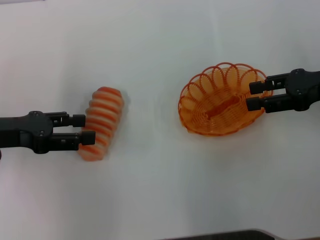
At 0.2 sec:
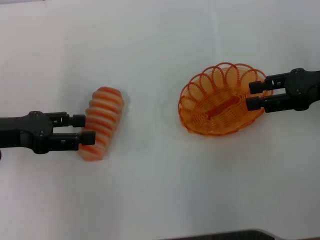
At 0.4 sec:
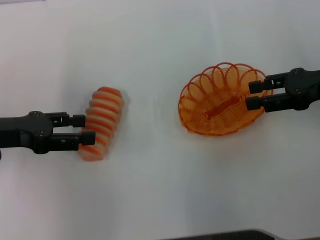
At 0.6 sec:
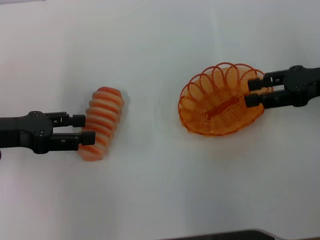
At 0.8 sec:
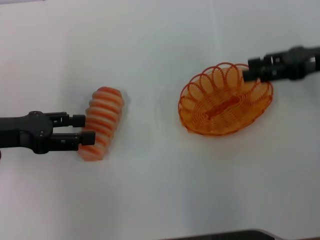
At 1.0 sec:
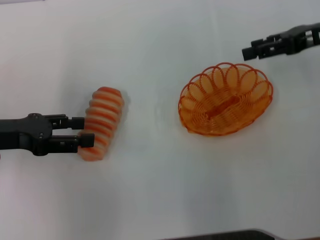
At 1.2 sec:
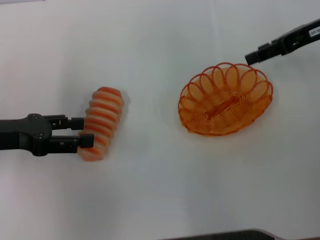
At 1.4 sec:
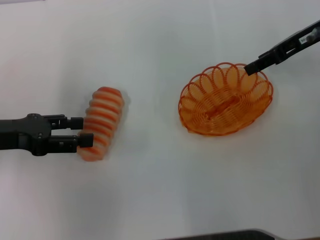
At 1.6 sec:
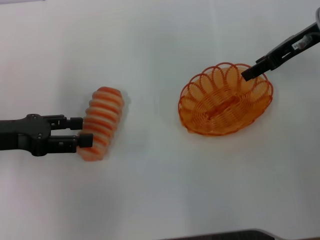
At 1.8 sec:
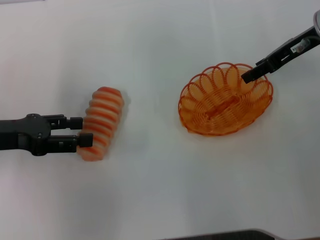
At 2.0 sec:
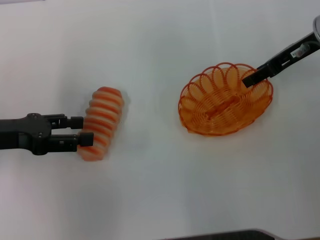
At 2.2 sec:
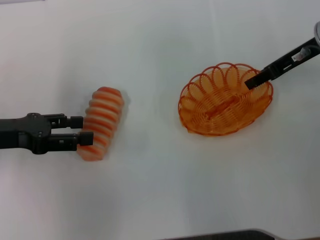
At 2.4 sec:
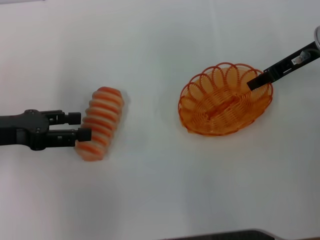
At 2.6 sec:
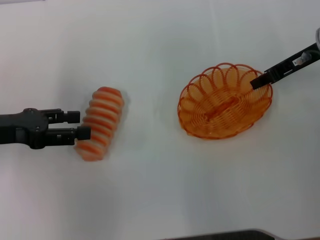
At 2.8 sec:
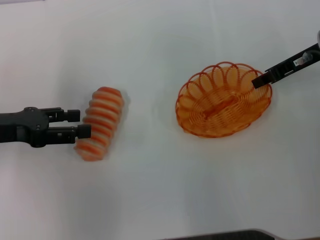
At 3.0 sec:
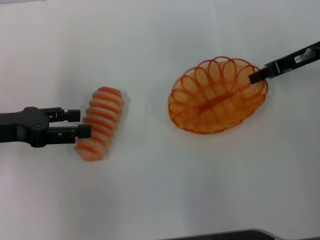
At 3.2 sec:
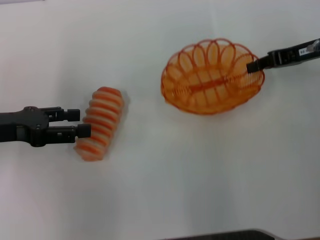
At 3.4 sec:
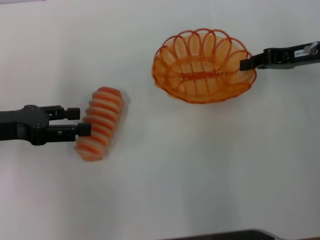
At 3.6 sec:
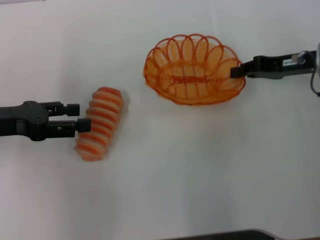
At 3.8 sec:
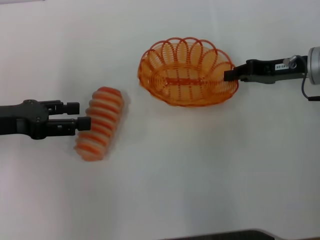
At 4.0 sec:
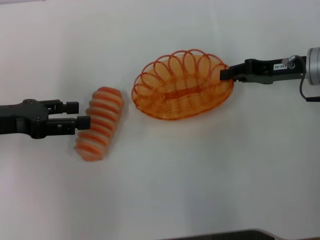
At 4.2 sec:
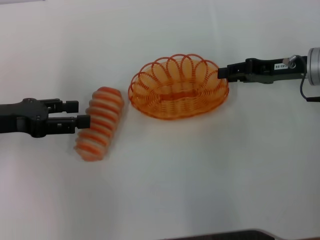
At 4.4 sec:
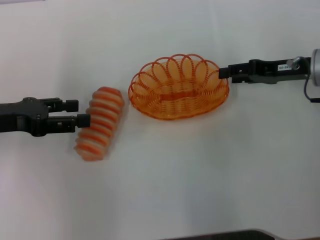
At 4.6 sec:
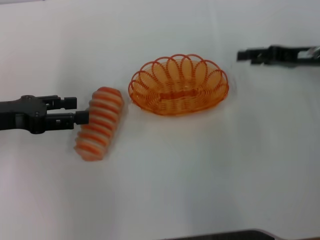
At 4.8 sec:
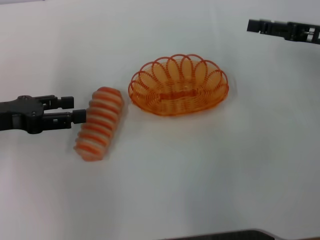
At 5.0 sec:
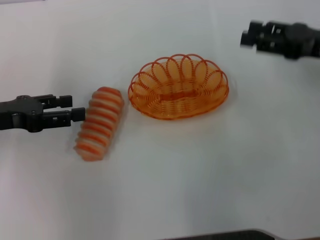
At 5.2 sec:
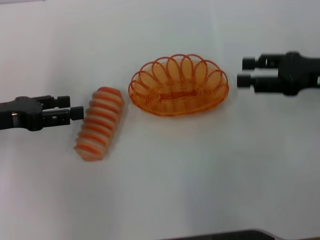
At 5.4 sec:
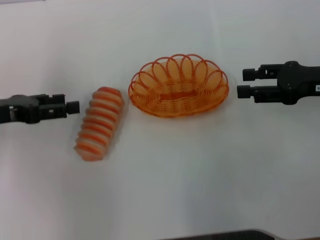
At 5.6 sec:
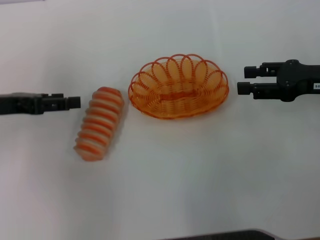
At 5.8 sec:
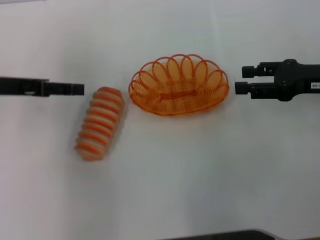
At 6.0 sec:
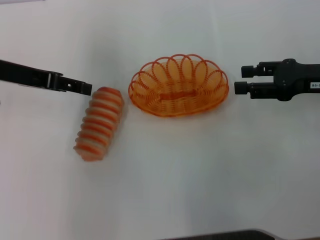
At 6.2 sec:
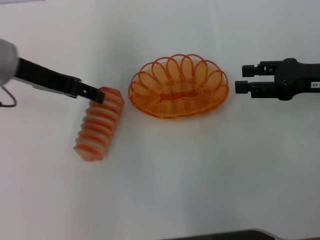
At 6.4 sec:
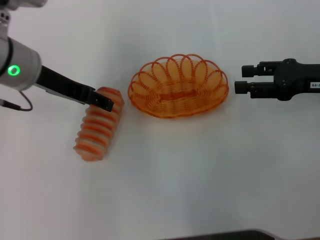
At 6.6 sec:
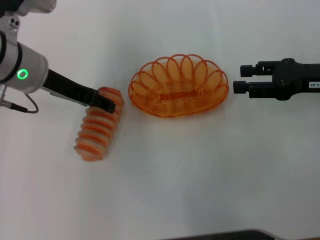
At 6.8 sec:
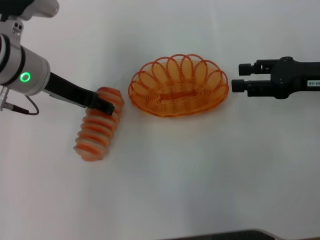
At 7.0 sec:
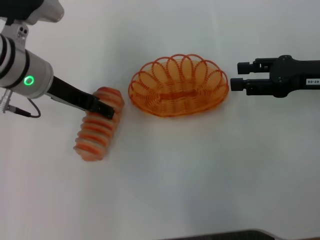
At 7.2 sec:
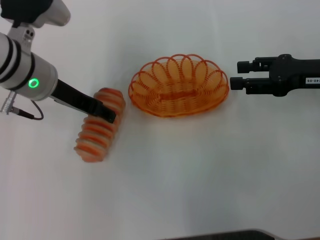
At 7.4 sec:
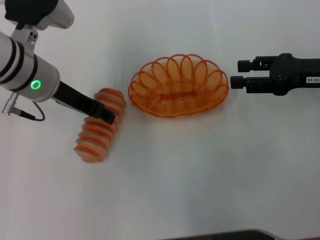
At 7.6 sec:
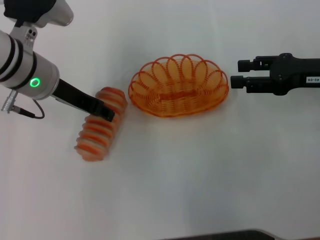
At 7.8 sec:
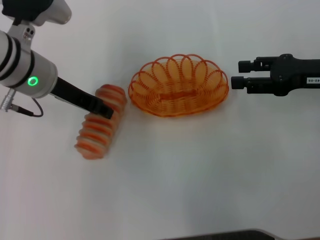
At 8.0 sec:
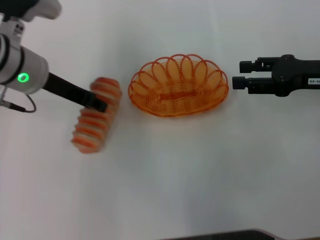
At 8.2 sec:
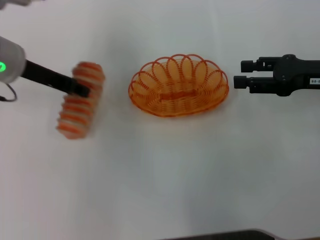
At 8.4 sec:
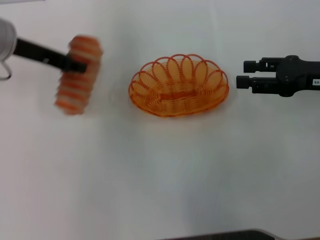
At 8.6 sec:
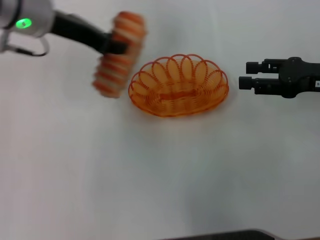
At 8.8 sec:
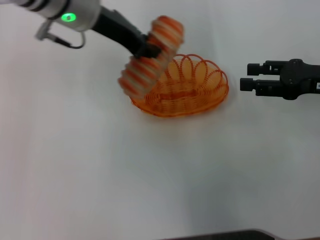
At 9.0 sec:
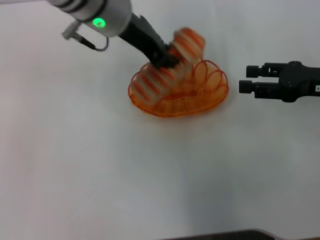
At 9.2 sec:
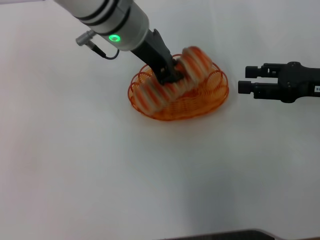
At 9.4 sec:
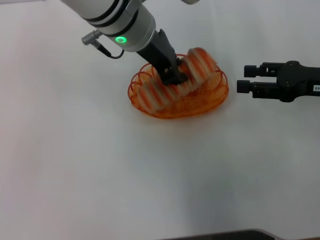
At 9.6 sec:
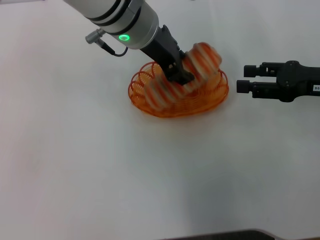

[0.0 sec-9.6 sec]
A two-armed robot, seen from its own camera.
Step, 0.0 sec to 3.2 sec: Pick up the basket with the right gripper.
Step, 3.4 sec to 4.6 sec: Place the basket in the center of view with the right gripper.
Step, 4.8 sec to 8.2 sec: Pick up the long bread with the left gripper.
0.0 sec to 1.6 sec: The right gripper shifts approximately 10 cm forward and to the left.
1.6 sec to 3.2 sec: The right gripper ends up some 5 cm from where it was, and closes.
3.2 sec to 4.8 sec: The right gripper opens.
4.8 sec to 6.4 sec: The left gripper goes approximately 15 cm to the right, forward and upward.
6.4 sec to 8.0 sec: The left gripper closes up.
8.0 sec to 9.6 sec: The left gripper travels to the right by about 15 cm.

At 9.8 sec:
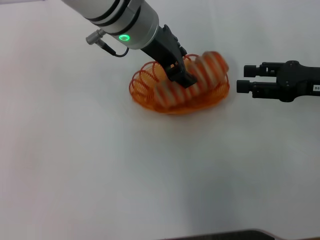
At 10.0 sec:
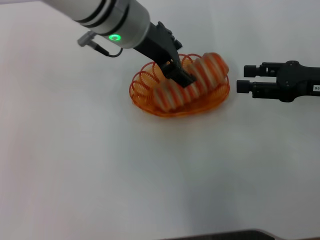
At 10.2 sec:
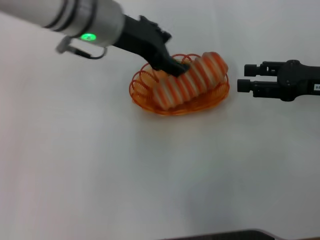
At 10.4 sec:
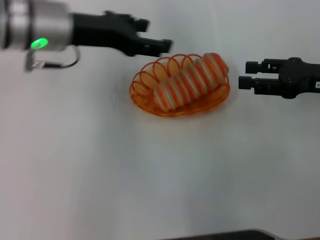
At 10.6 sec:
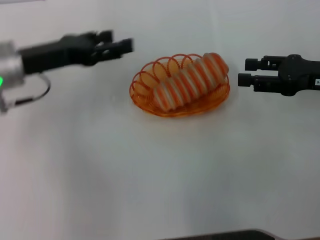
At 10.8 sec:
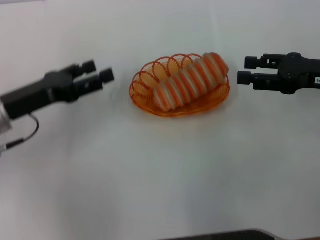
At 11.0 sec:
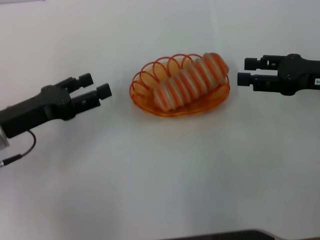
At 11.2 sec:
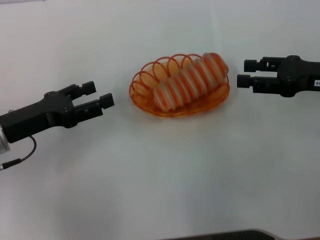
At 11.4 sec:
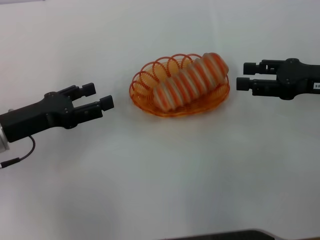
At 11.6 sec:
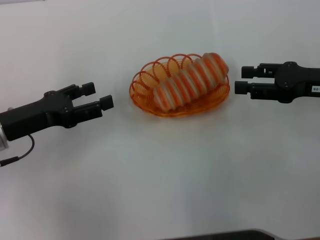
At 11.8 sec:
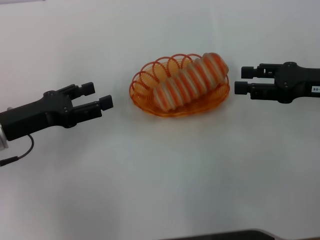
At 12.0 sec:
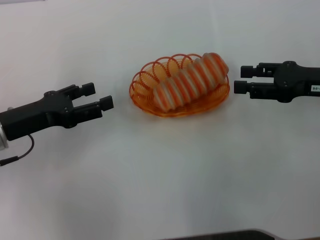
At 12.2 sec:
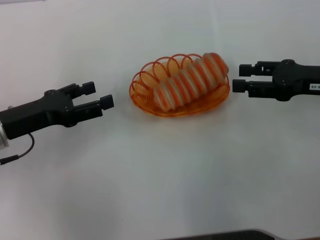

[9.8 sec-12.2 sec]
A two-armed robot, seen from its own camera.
9.8 sec to 11.0 sec: The left gripper shifts some 25 cm to the left, downward and backward, and opens its fingers.
11.0 sec to 12.2 sec: The grippers stay close to where they were, moving slightly.
